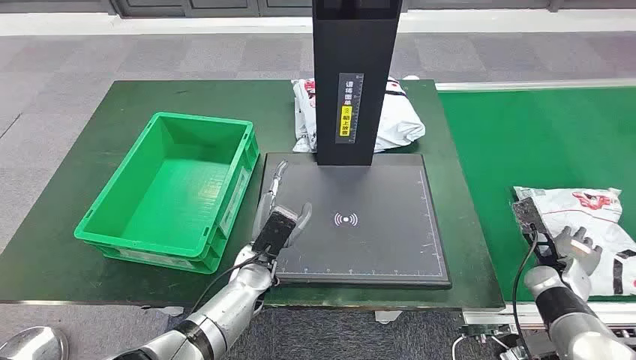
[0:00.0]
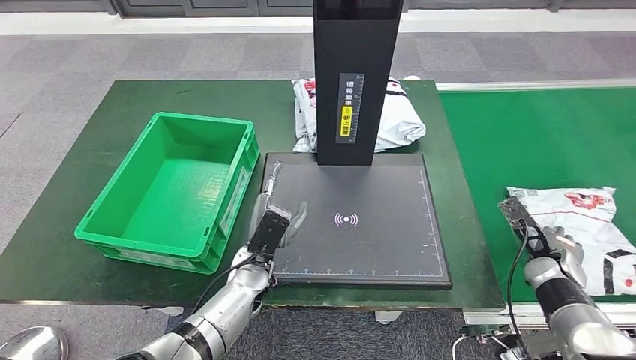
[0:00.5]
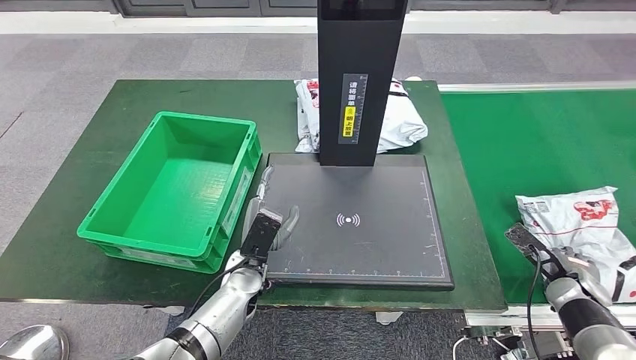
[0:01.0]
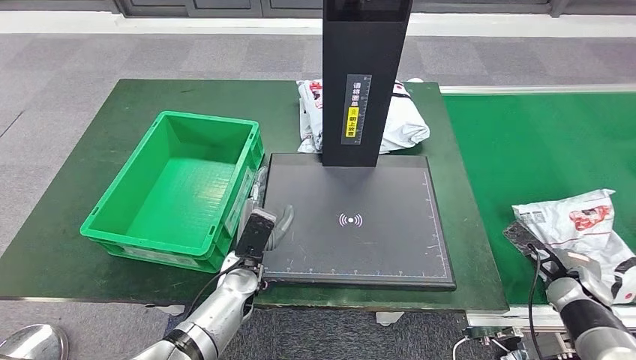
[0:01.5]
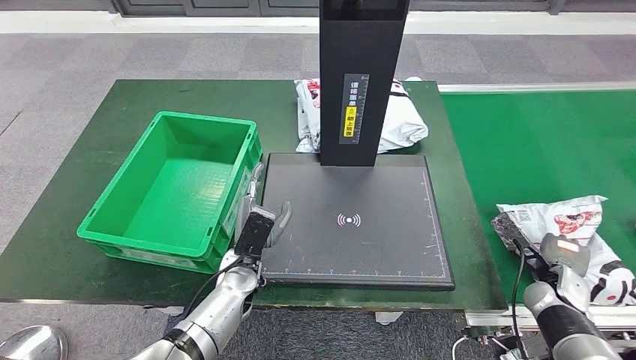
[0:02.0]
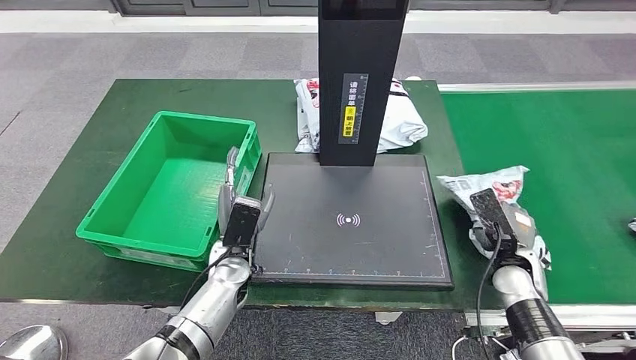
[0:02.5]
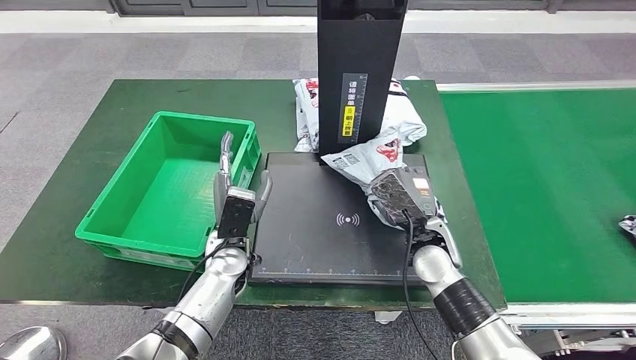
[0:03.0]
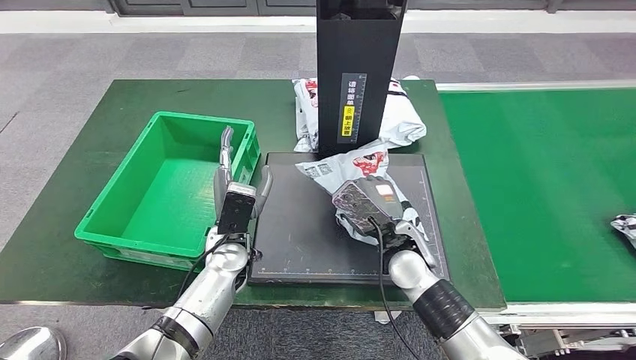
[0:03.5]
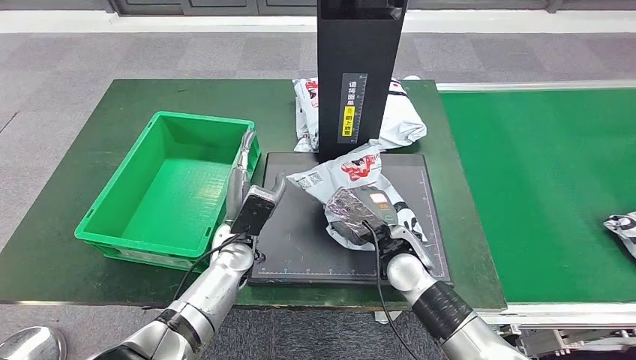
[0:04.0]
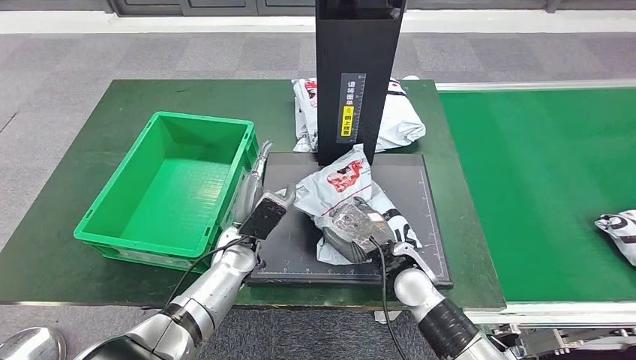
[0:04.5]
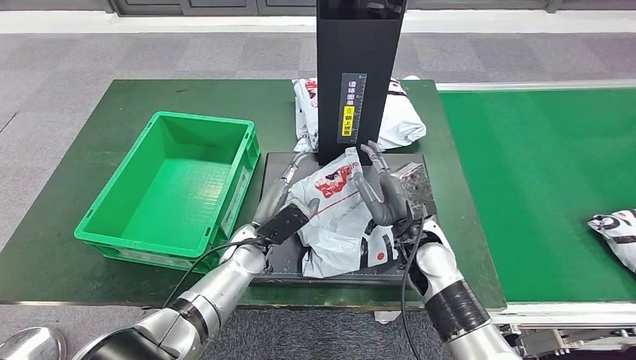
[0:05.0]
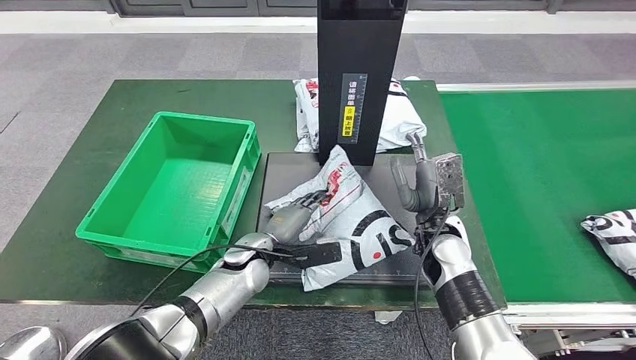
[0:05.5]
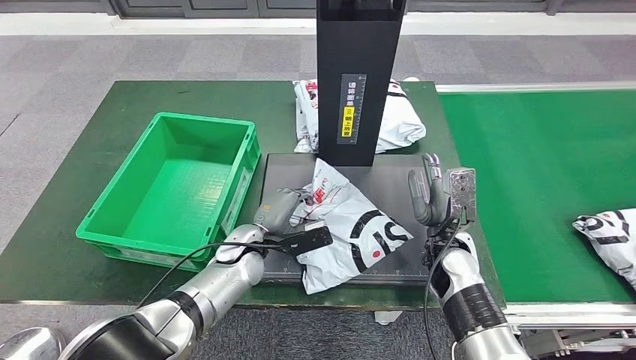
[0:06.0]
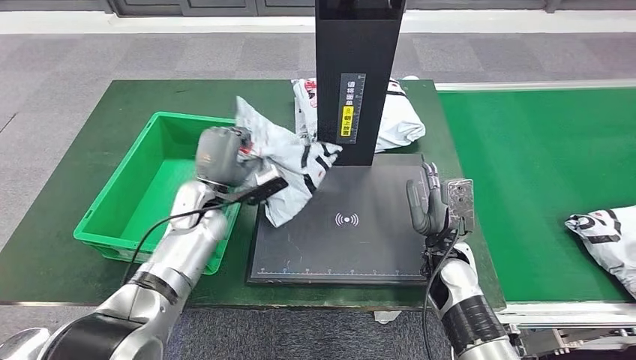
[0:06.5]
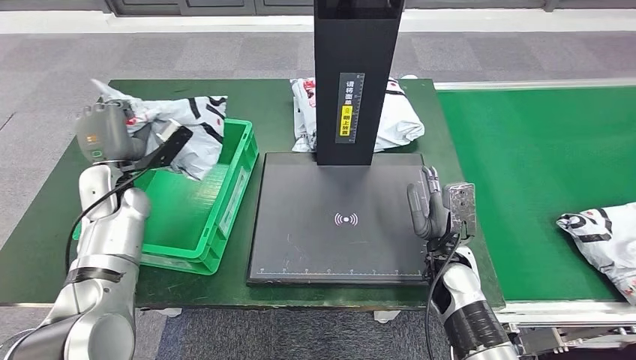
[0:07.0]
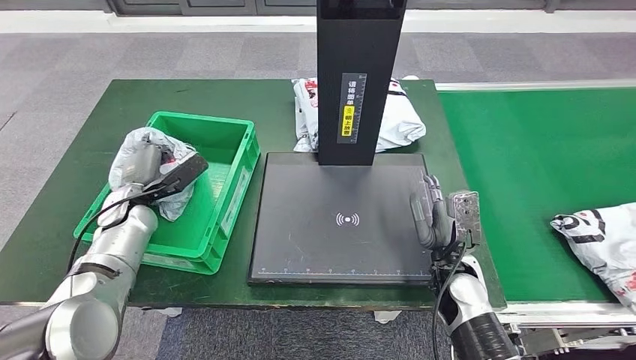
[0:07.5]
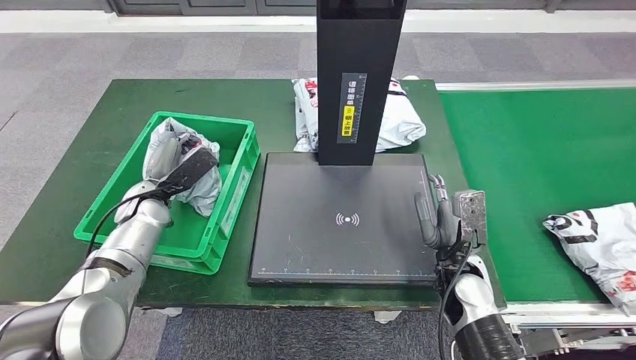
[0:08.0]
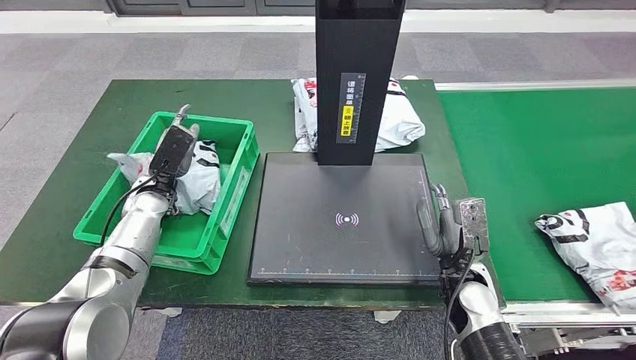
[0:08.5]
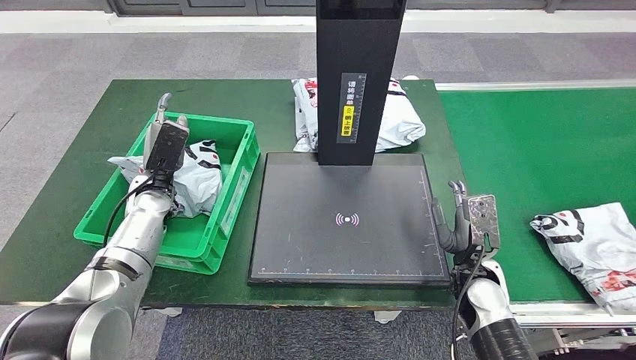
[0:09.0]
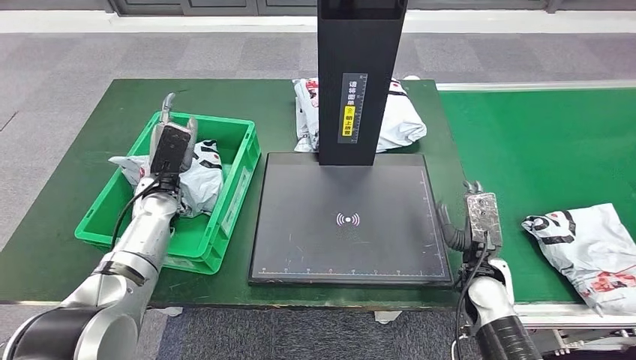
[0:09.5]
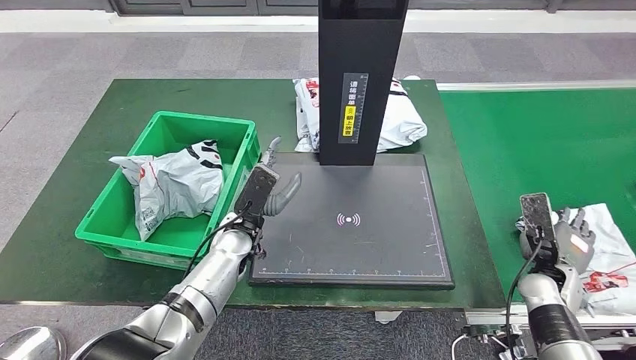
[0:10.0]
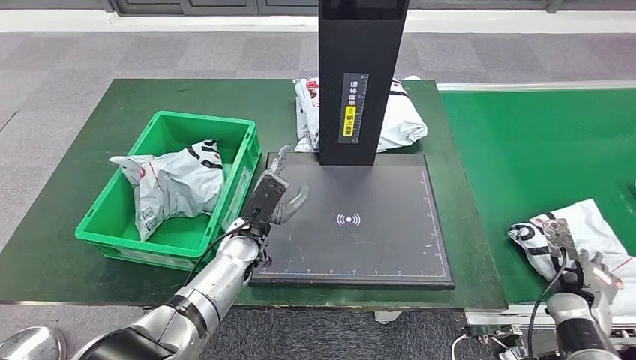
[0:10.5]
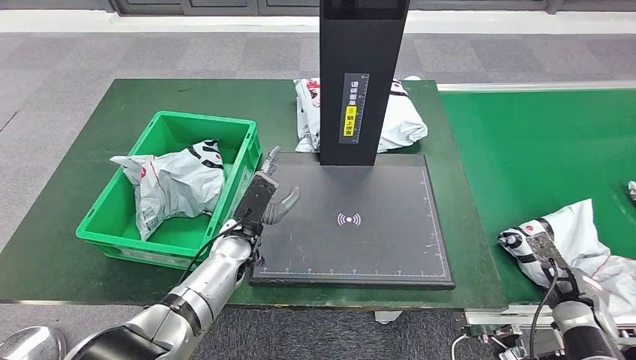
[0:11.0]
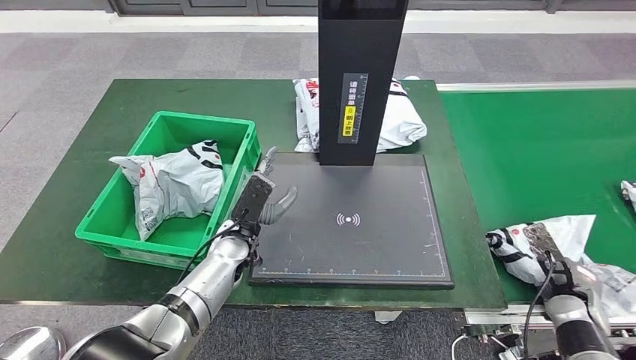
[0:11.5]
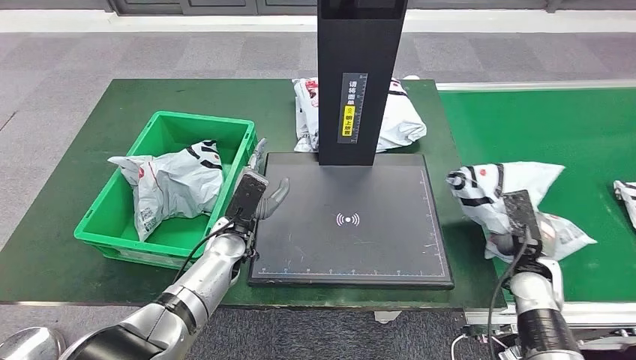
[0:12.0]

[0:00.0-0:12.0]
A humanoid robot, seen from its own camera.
Step, 0:00.0 to 0:02.5: Take the parcel off the conveyor belt.
Step, 0:03.0 to 0:05.5: Place the parcel onto the inbound machine.
Step, 0:06.0 to 0:06.5: Pick up the parcel from the inbound machine.
Step, 0:07.0 to 0:09.0: Put the parcel inside the courier box.
0:10.0 to 0:12.0: The right hand moves some 5 cm to the right and comes back.

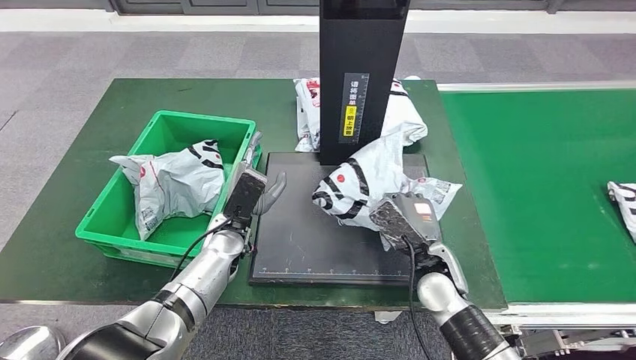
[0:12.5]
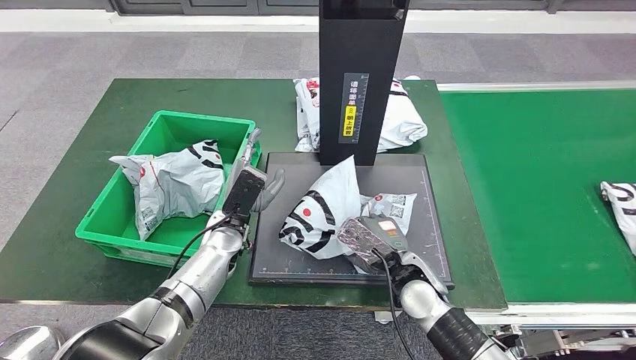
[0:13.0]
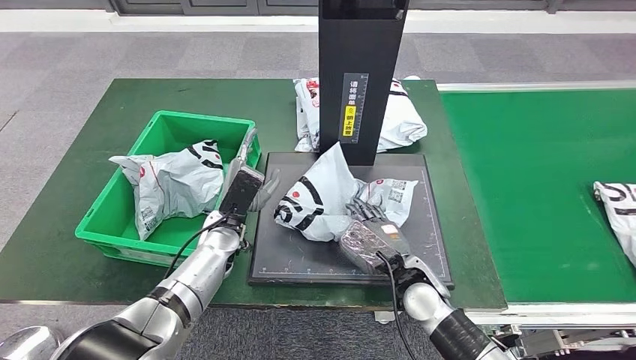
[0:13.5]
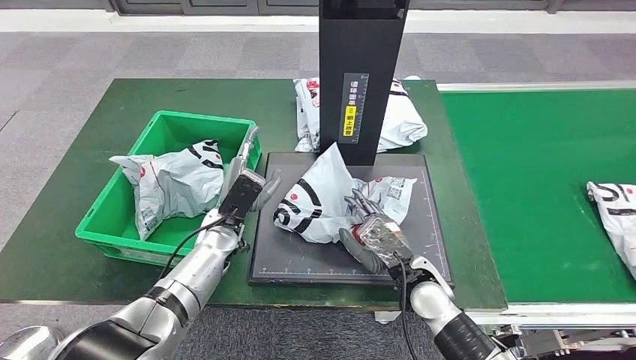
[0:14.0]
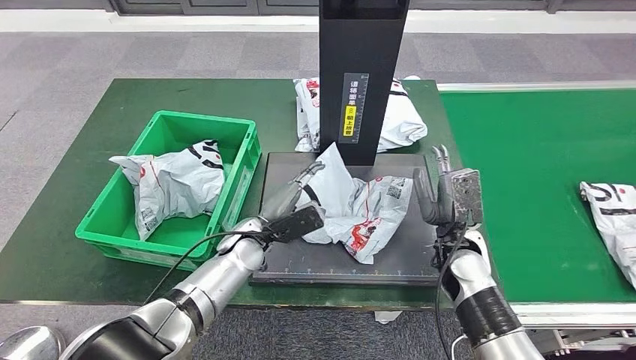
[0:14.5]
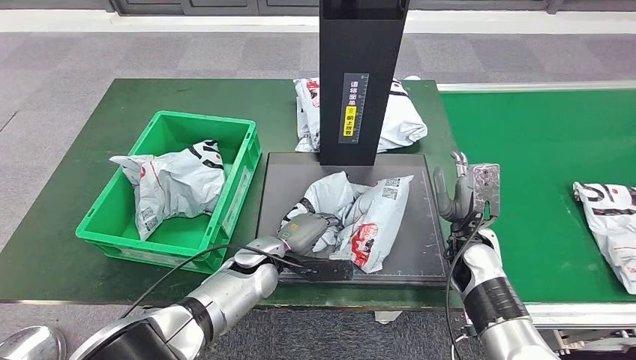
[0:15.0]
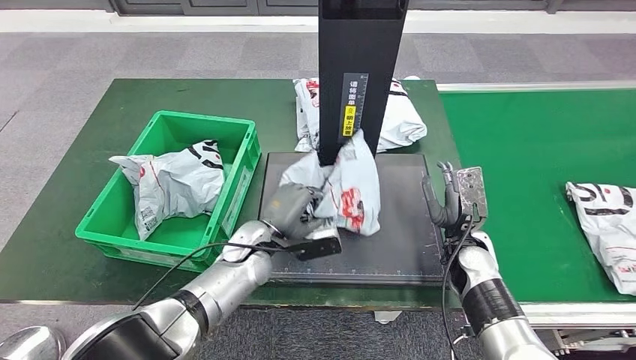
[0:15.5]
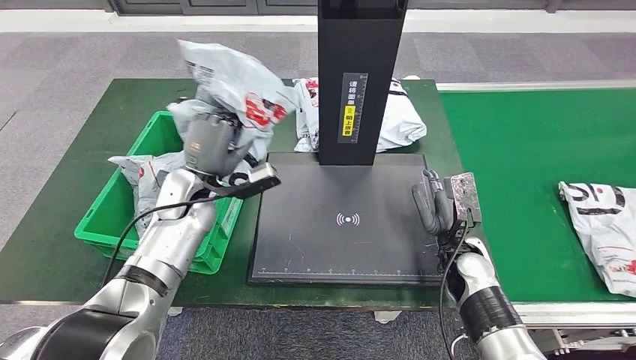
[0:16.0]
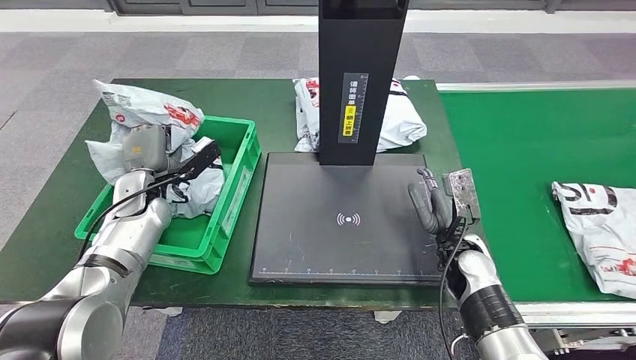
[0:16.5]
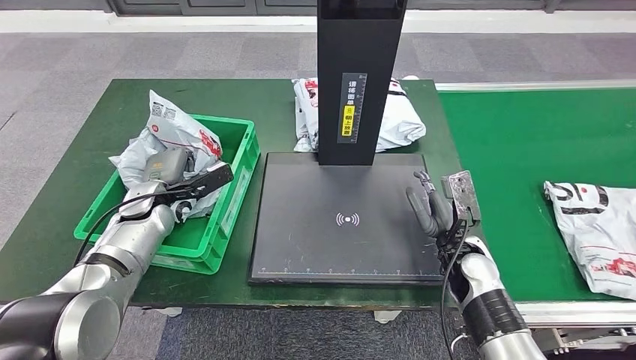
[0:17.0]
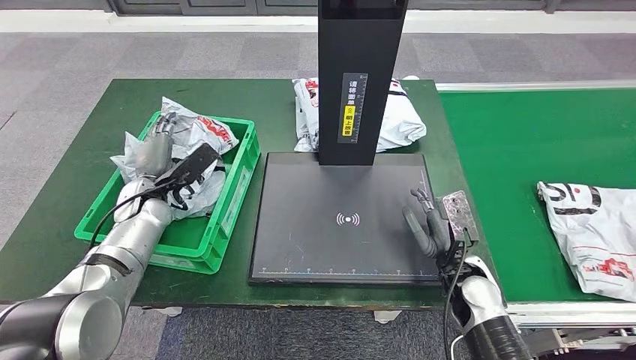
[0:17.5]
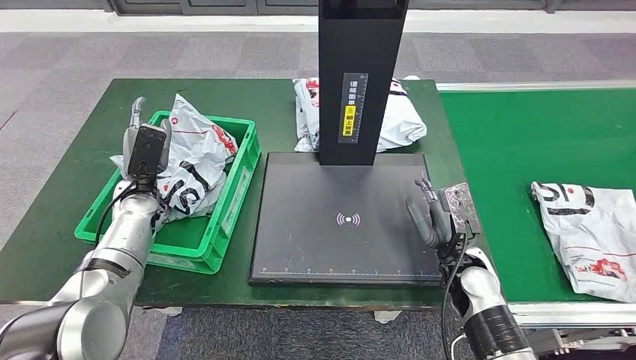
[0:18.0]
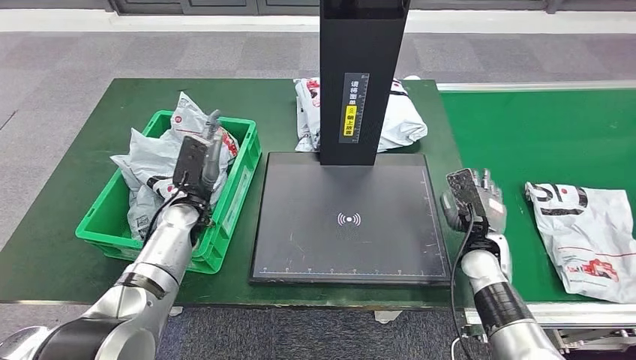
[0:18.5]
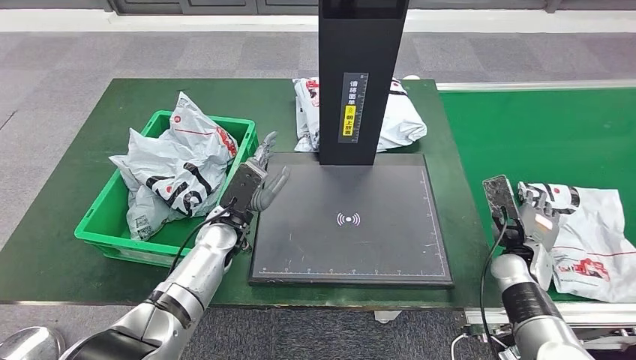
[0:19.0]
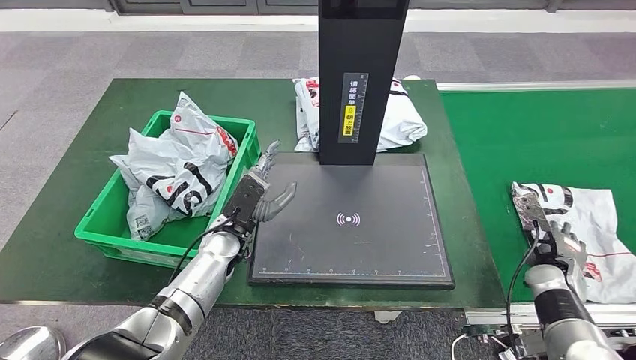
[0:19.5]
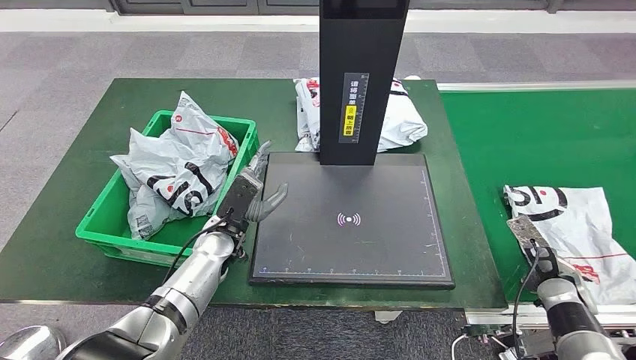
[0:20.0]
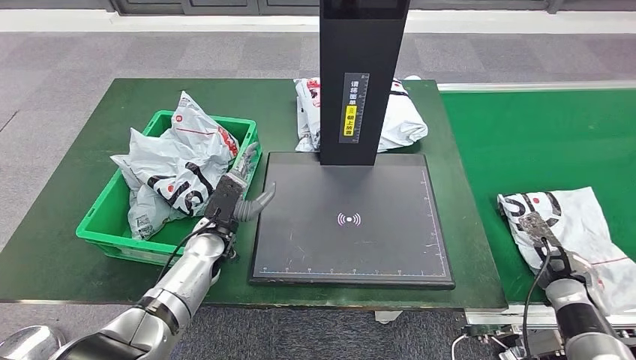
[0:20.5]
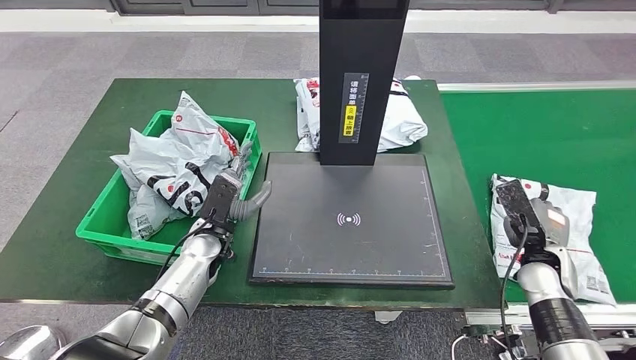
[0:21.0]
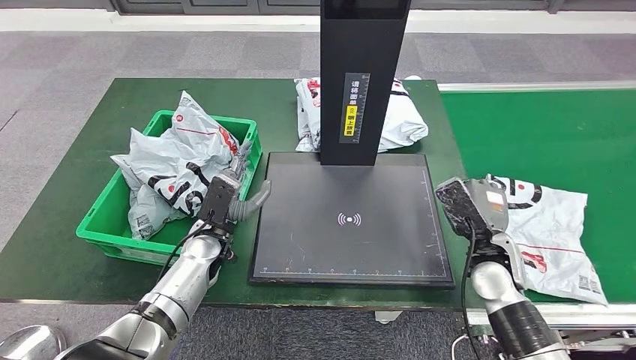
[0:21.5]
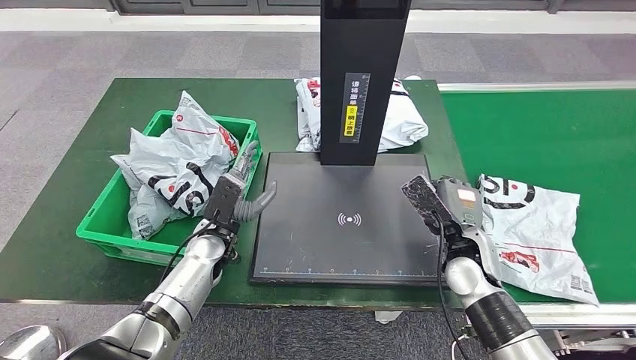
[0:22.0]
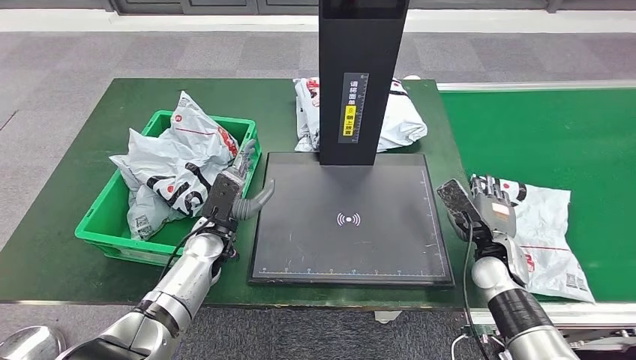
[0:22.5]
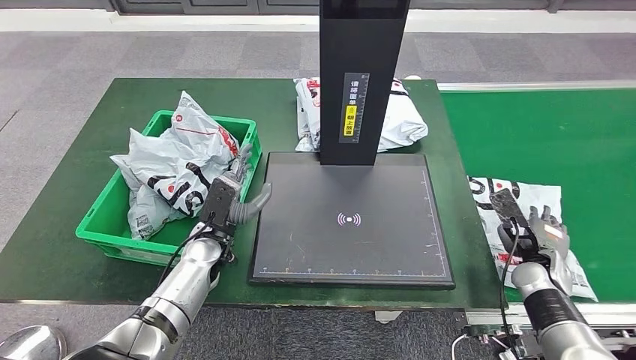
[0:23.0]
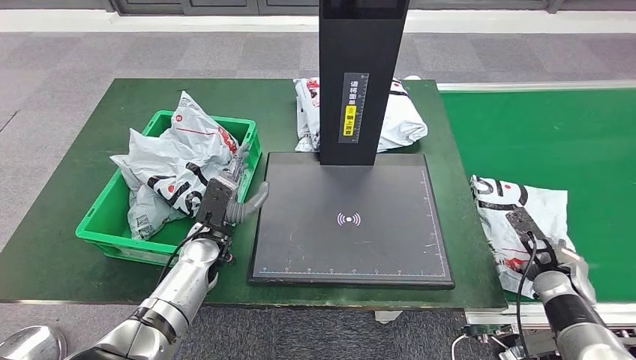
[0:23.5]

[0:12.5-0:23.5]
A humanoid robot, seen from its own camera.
Step, 0:12.5 to 0:14.5: Place the parcel onto the inbound machine.
Step, 0:15.0 to 0:16.0: Pick up the parcel from the inbound machine.
Step, 0:16.5 to 0:18.5: Place the parcel into the delivery box.
0:12.5 to 0:14.5: The right hand changes place by some 5 cm.
0:20.0 to 0:21.5: The right hand goes about 20 cm to the left and upward.
0:21.5 to 0:23.5: The right hand travels to the right and downward by about 15 cm.
